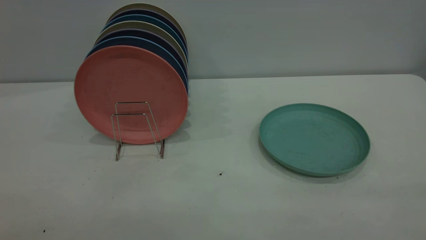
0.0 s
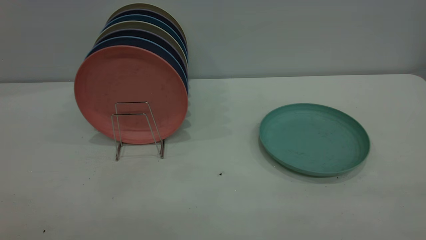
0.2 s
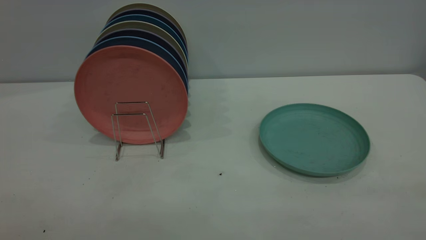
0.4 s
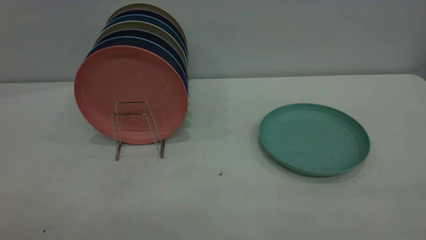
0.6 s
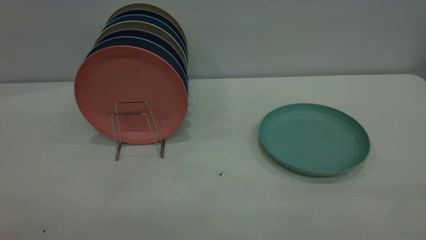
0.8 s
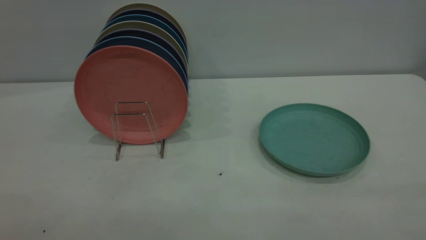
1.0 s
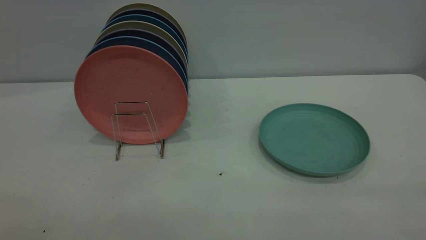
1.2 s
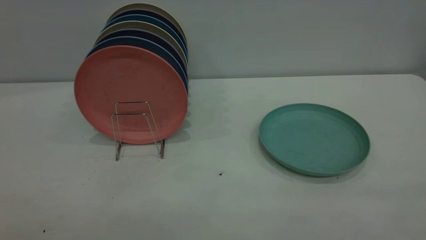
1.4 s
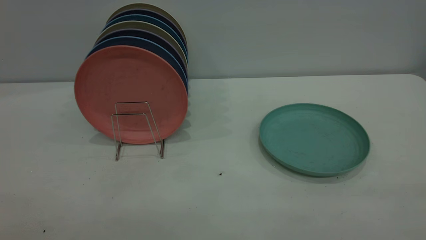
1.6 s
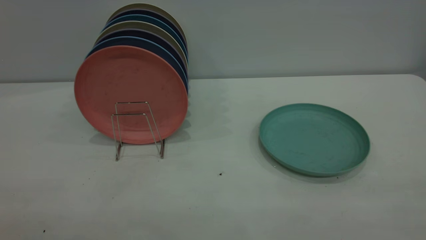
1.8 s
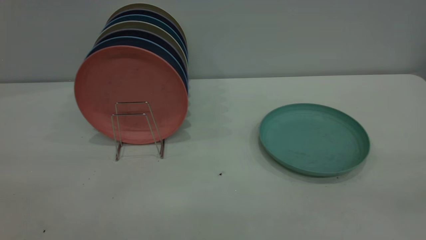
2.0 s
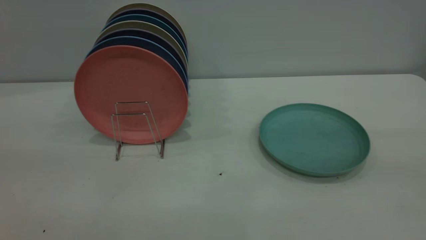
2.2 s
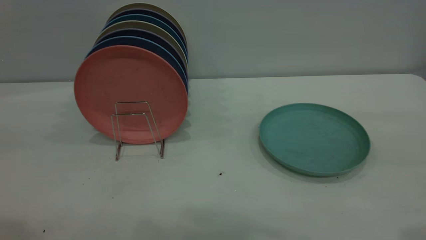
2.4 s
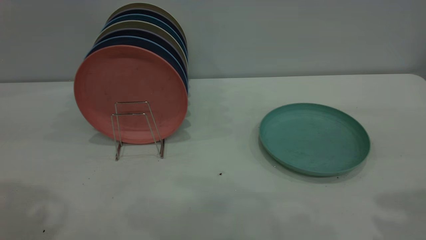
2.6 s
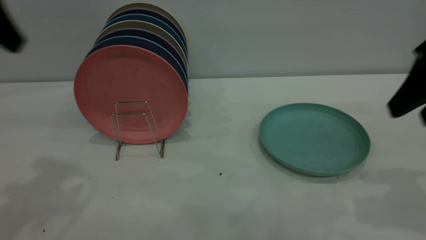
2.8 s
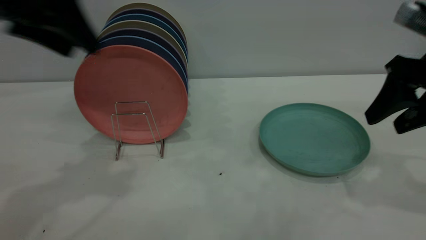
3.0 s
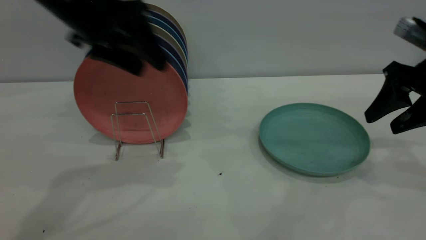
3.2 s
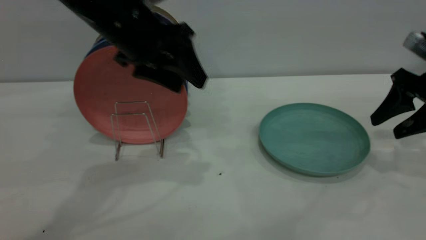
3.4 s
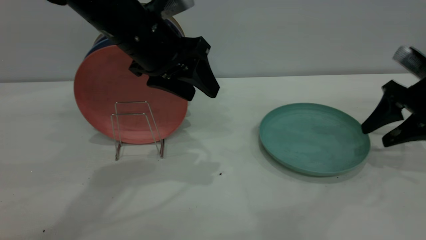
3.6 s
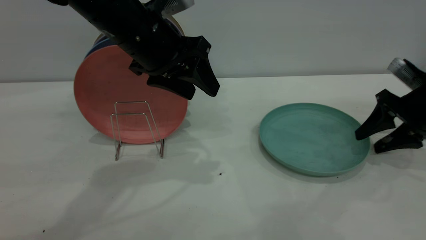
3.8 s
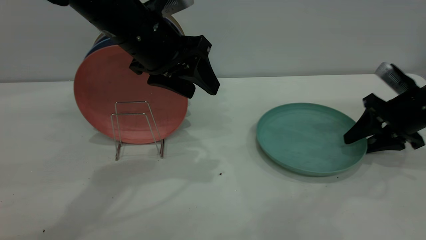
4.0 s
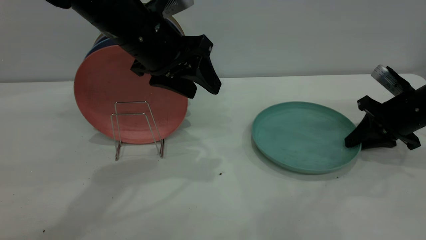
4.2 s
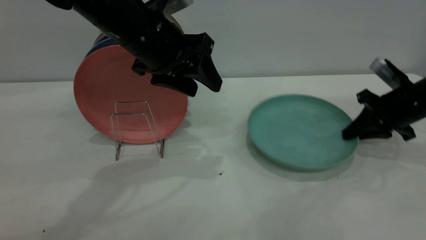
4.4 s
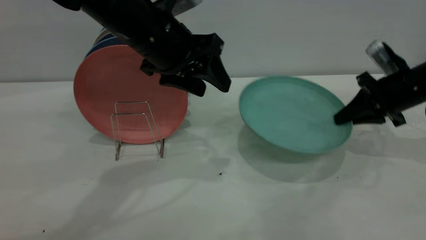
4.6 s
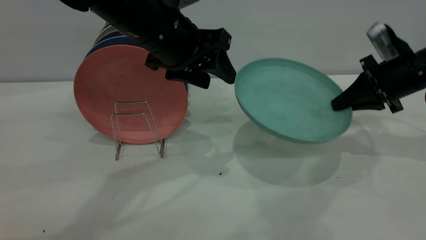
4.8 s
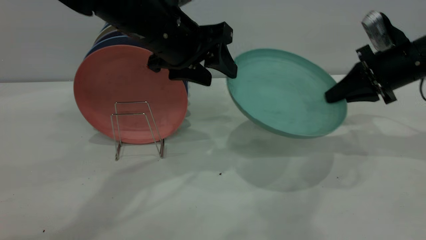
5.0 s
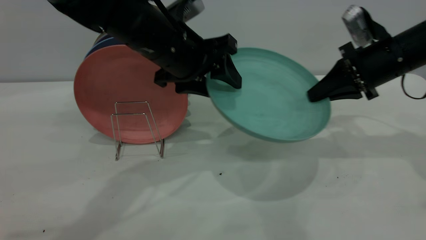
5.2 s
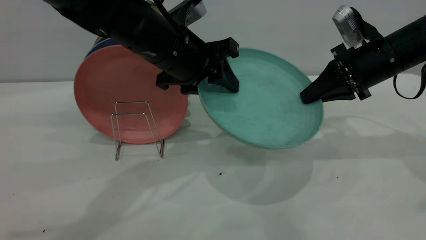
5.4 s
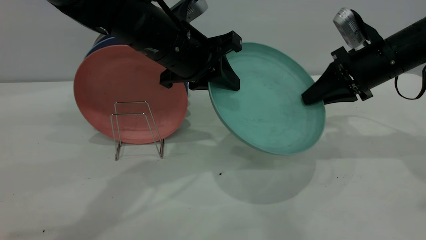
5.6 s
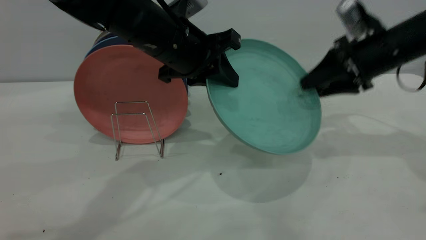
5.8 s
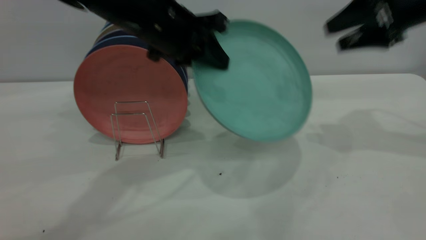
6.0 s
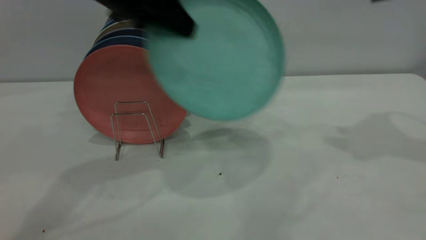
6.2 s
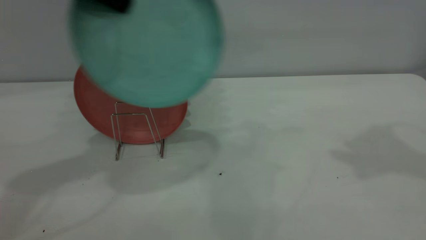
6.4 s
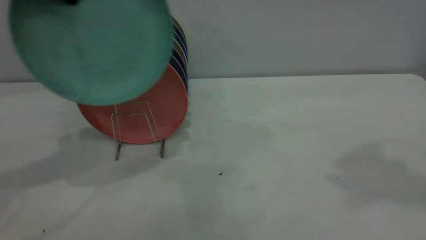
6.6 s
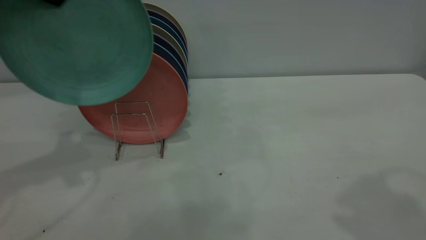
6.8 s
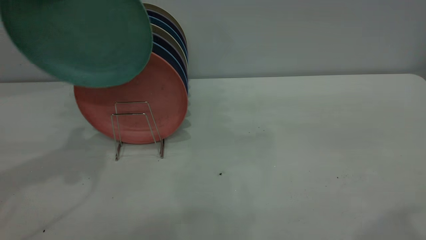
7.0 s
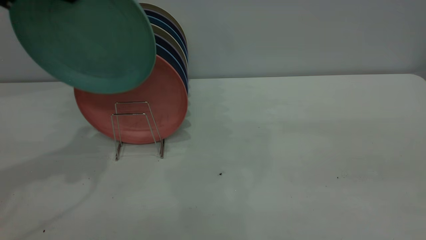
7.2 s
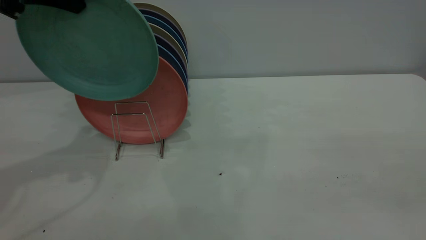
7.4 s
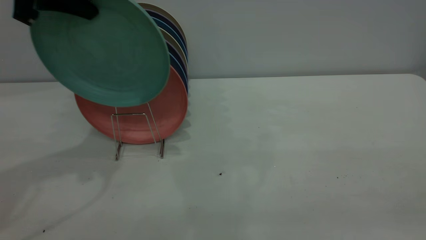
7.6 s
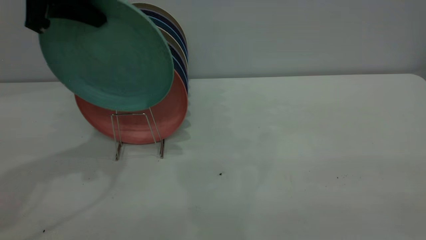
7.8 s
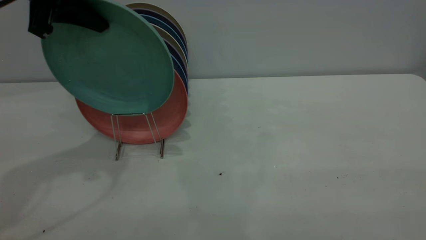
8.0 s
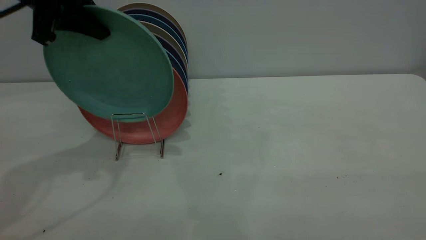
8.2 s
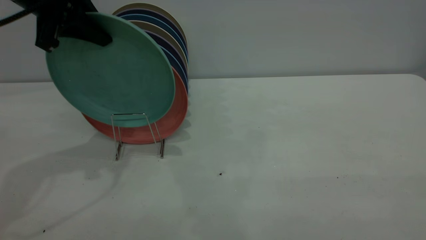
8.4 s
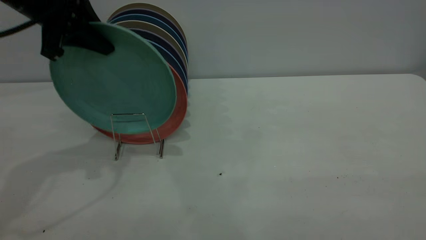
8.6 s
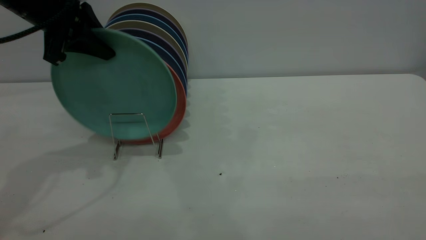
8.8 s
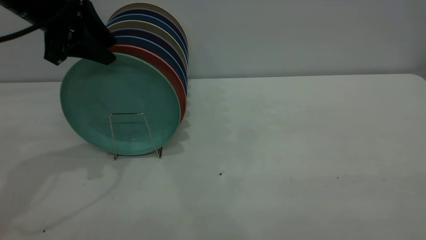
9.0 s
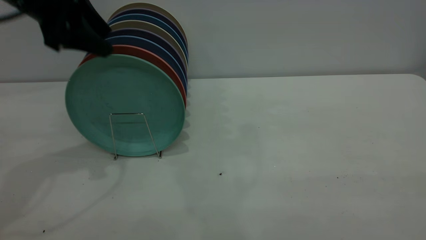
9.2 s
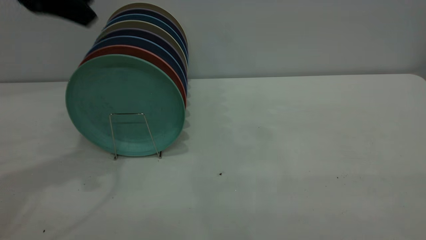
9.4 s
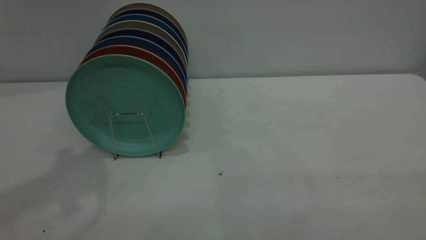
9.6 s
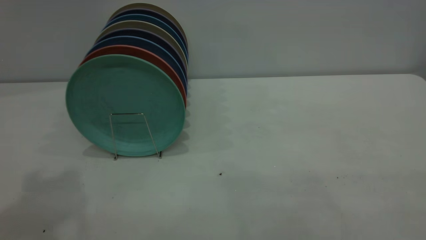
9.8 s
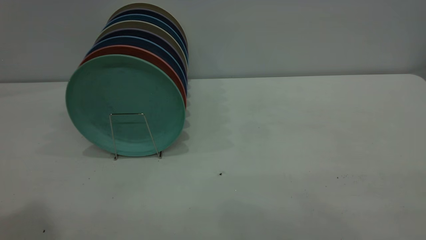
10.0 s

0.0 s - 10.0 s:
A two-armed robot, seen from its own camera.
Task of the whole recording: the right gripper grasp the green plate, the right gripper pass the green plate to the left gripper, and the left gripper place the green plate on the plate rack.
Step, 0.0 s - 4.4 s: Pick up the plate with the right gripper.
Step, 4.6 s - 5.8 s: Pass the plate from the right gripper to the left gripper.
Step, 6.0 s - 9.2 s: Place the plate on the shelf.
0.0 s - 1.4 s: Both grippers stay put.
1.4 s - 2.8 s: The two grippers go approximately 30 cm forward.
2.8 s - 4.2 s: The right gripper heads downward and forward, covering roughly 20 cm, and closes its fingers; the left gripper is displaced to the right, downward and forward by approximately 20 cm.
4.2 s - 5.8 s: The left gripper closes its fingers, while the right gripper shifts approximately 10 cm upward and to the left, and opens up.
5.8 s - 7.2 s: The right gripper is displaced backward and upward by about 35 cm. The left gripper heads to the left and upward, covering some 25 cm.
7.2 s - 8.6 s: The left gripper shifts some 5 cm downward.
8.6 s - 10.0 s: The left gripper moves upward and backward, approximately 30 cm, and opens.

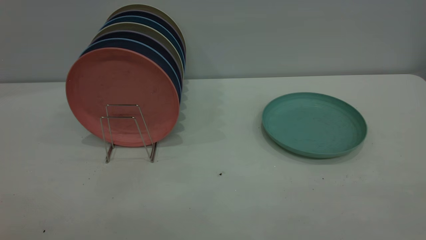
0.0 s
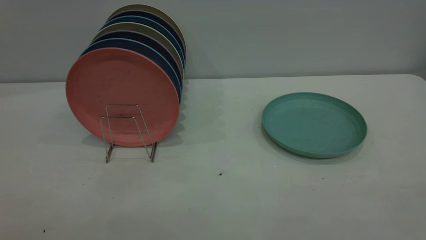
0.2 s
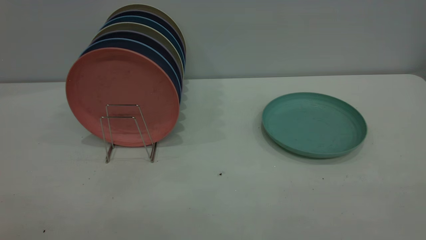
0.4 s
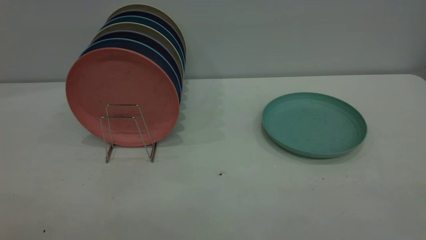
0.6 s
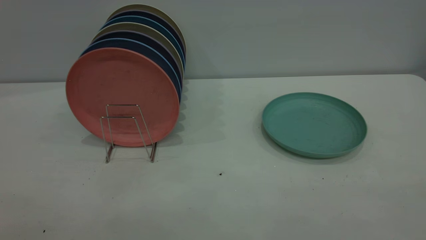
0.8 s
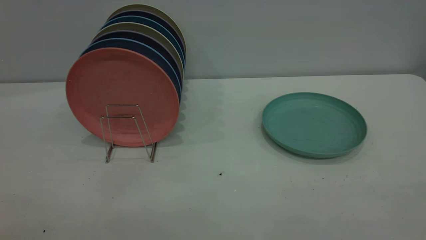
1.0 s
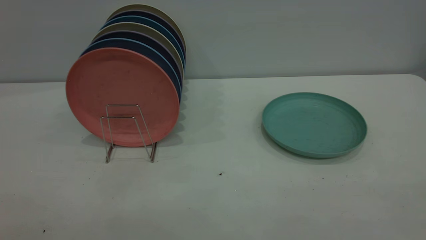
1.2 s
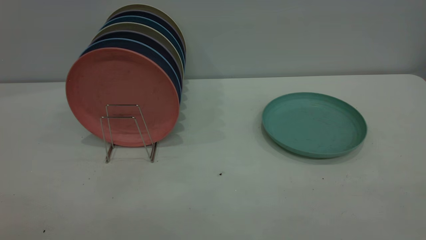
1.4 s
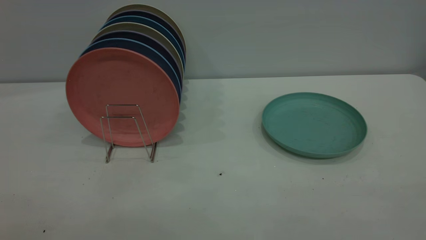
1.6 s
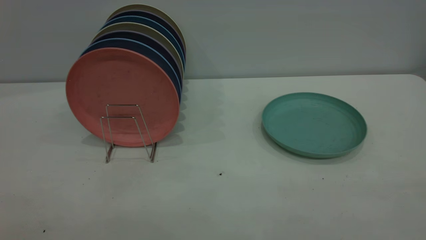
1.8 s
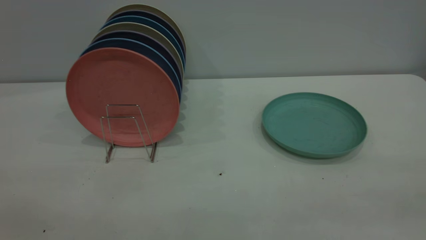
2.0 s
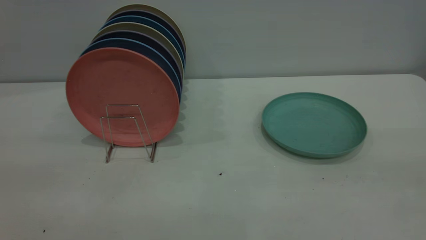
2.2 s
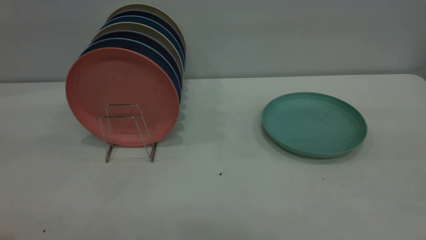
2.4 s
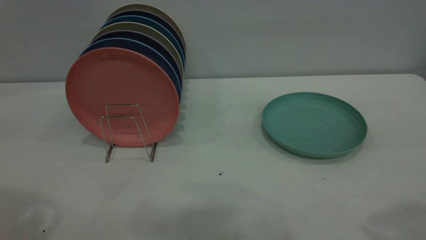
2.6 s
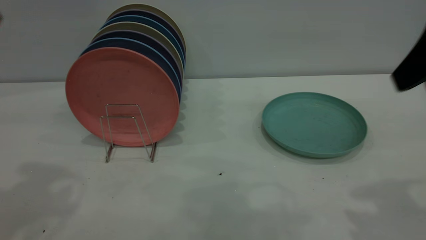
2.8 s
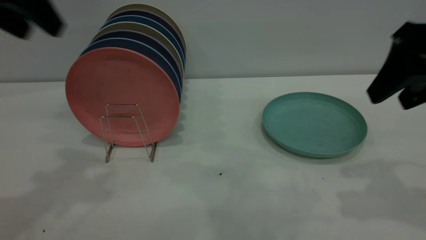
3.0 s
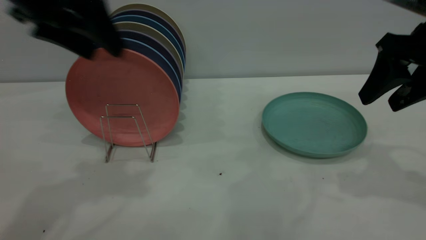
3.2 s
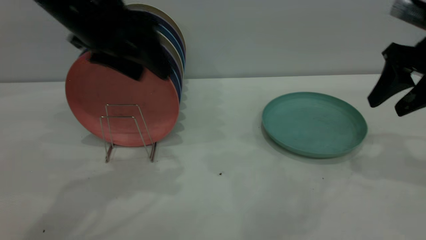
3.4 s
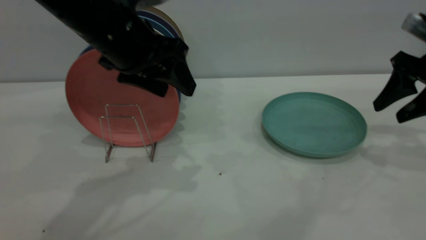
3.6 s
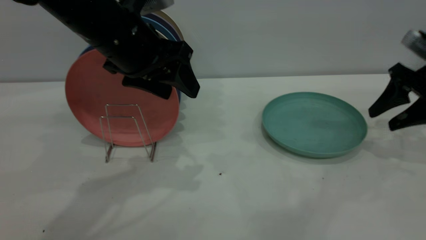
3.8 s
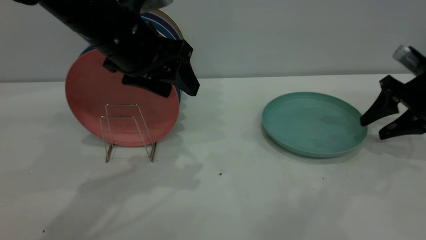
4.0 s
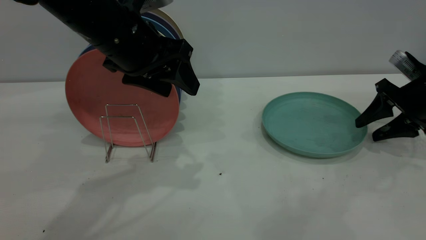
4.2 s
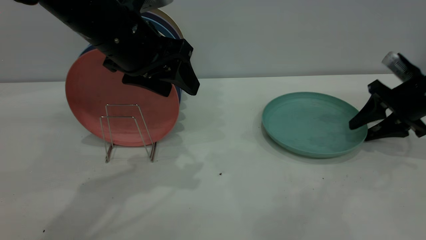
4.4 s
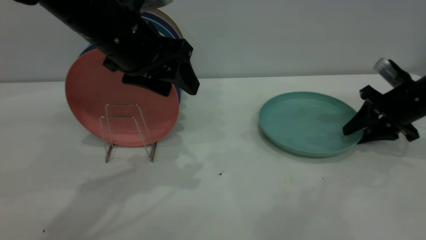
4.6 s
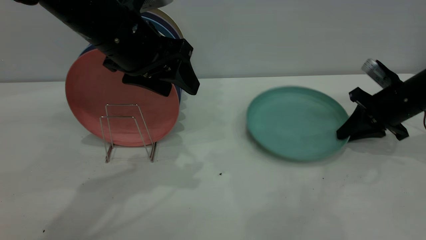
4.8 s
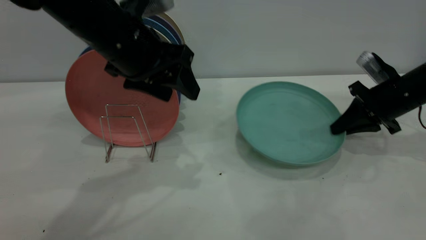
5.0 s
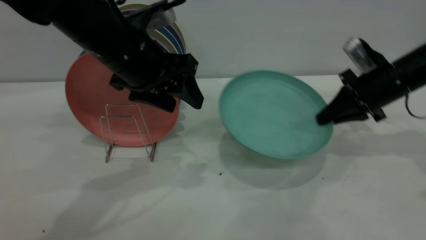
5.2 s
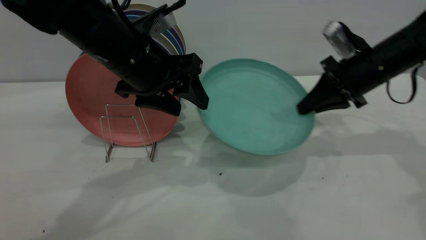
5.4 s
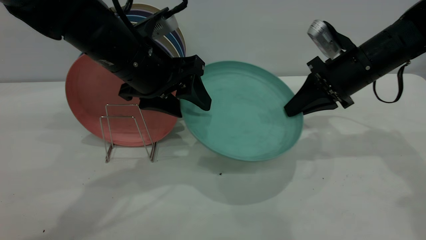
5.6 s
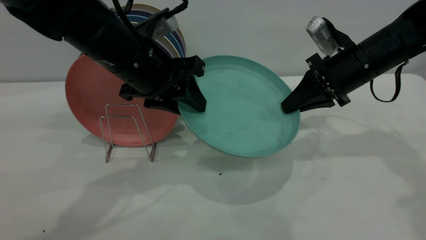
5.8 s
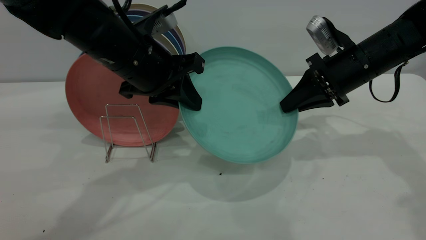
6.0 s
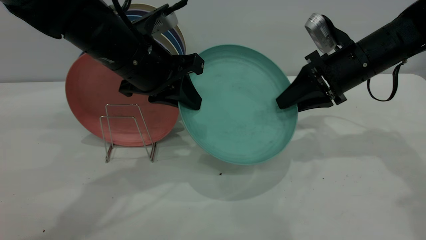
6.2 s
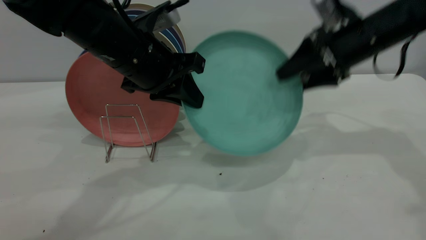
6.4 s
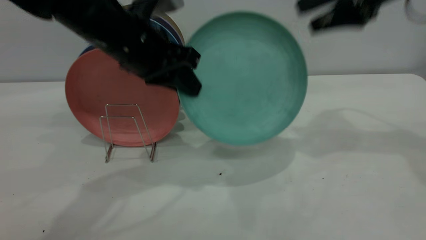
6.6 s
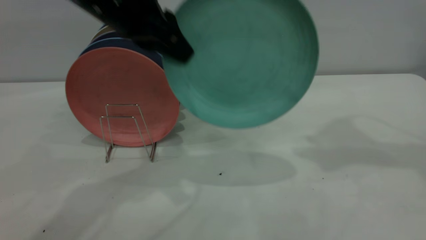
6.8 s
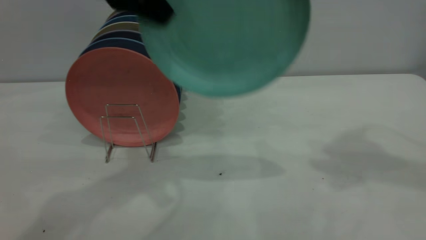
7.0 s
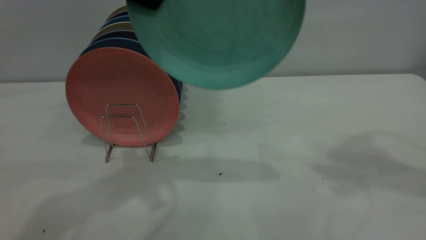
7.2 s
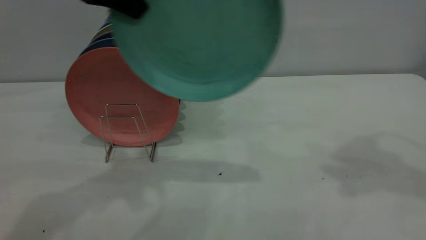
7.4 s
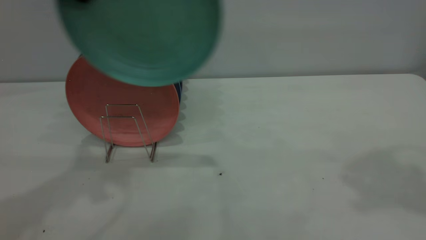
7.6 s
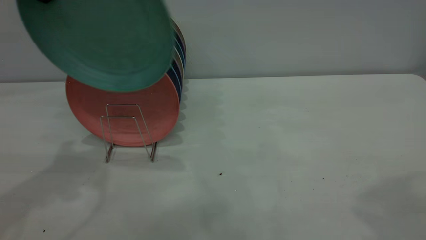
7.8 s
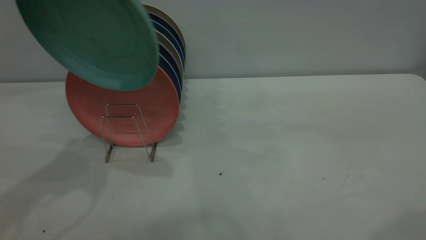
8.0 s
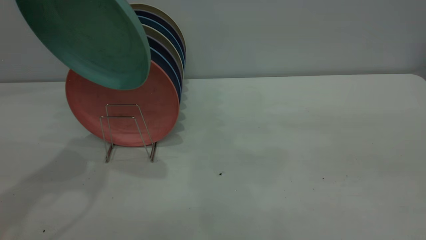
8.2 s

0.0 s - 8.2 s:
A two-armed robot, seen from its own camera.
Task of the whole recording: the right gripper grasp the green plate, the right gripper pass the green plate to the left gripper, and the left gripper place the green plate on the plate rack.
Step, 0.0 s - 5.0 s: Pick up the plate with the right gripper.
Step, 5.2 s - 6.4 s: Pass the plate from the right gripper to the left gripper.
0.0 s - 1.6 s: Both grippers stay about where they are.
1.6 s - 3.2 s: The two grippers go about 35 cm forward.
3.2 s - 5.0 s: The right gripper is displaced downward and forward by some 15 cm, and closes. The left gripper is displaced downward and to the right by approximately 10 cm.
5.0 s - 6.6 s: The right gripper travels upward by some 20 cm, and opens up; the left gripper closes.
6.6 s - 8.2 s: The left gripper heads to the left and upward, covering approximately 20 cm. Meanwhile the right gripper heads backward, covering approximately 30 cm.
